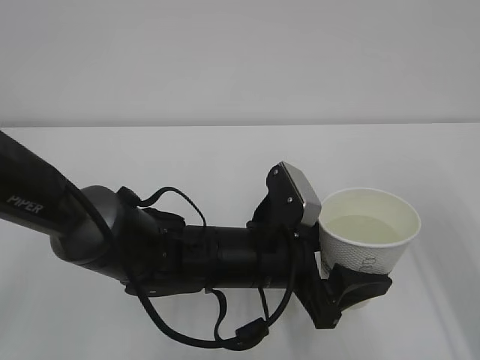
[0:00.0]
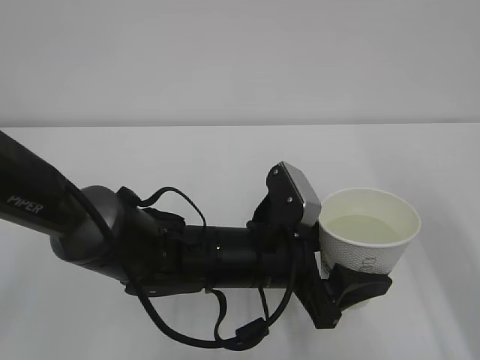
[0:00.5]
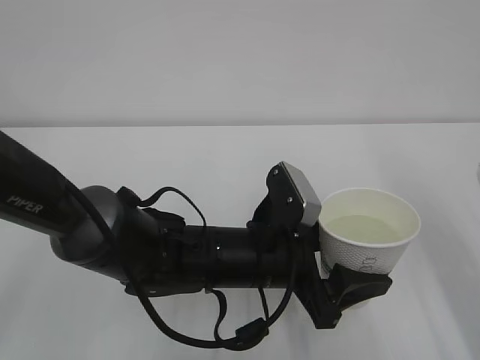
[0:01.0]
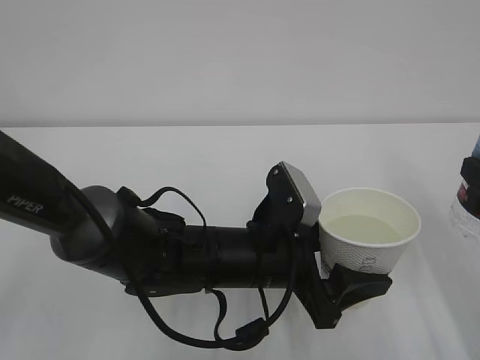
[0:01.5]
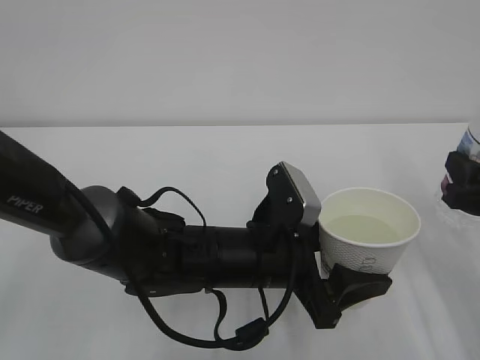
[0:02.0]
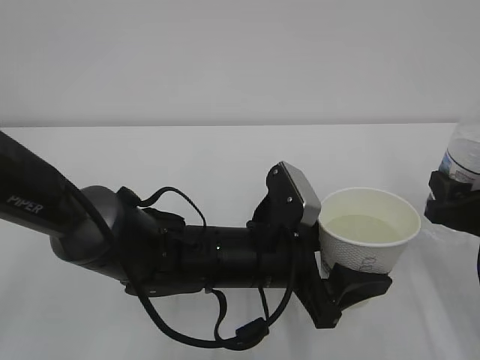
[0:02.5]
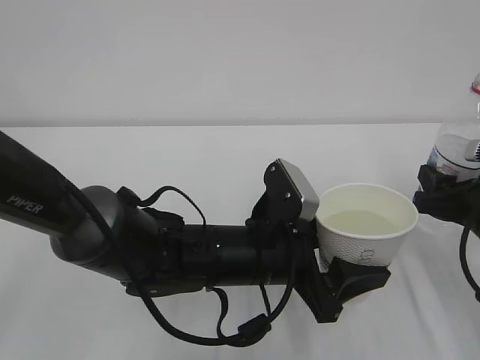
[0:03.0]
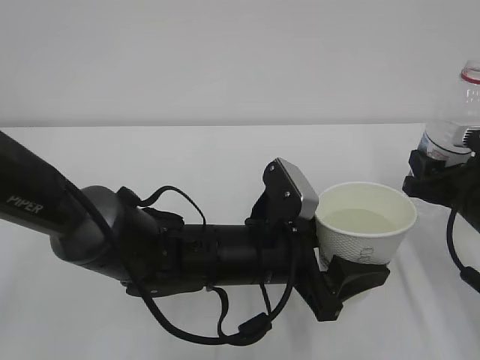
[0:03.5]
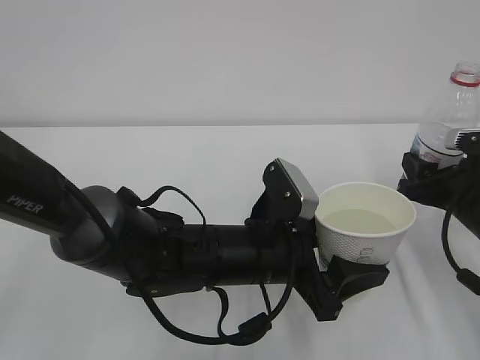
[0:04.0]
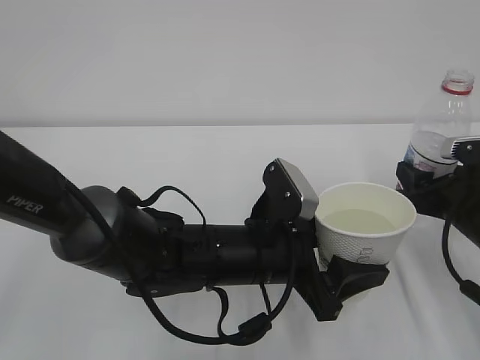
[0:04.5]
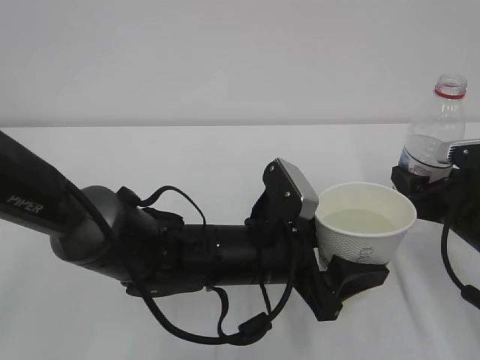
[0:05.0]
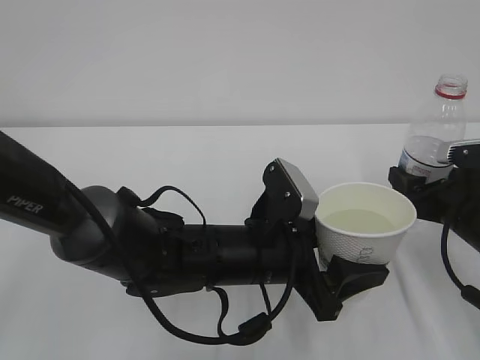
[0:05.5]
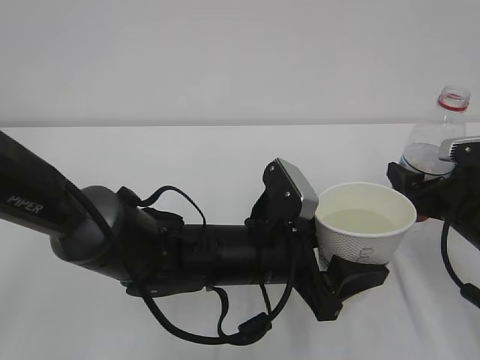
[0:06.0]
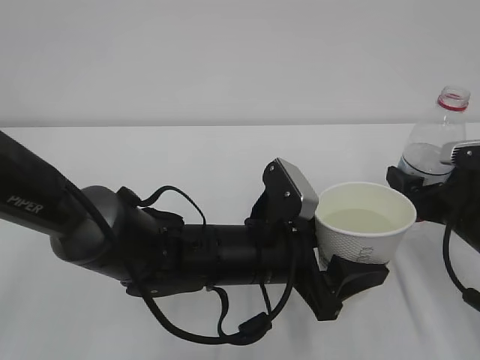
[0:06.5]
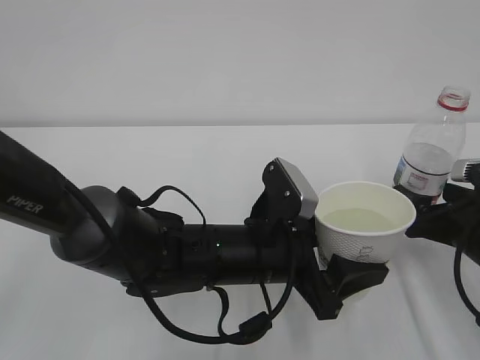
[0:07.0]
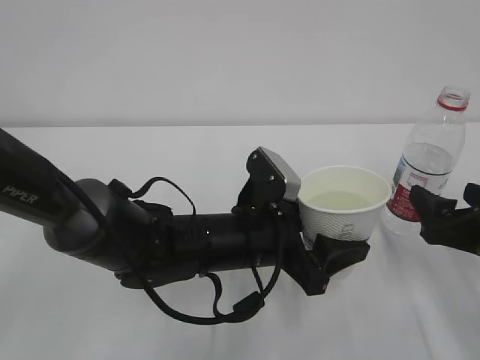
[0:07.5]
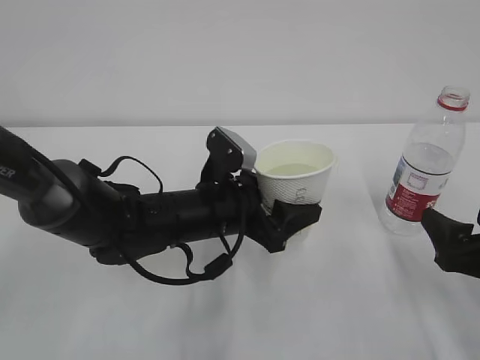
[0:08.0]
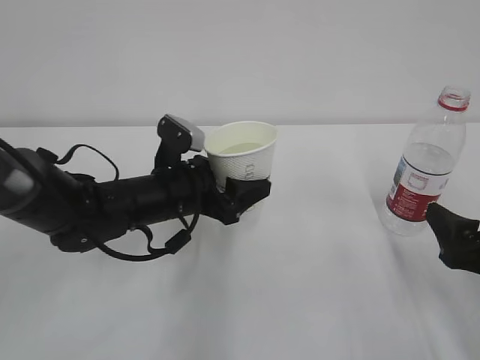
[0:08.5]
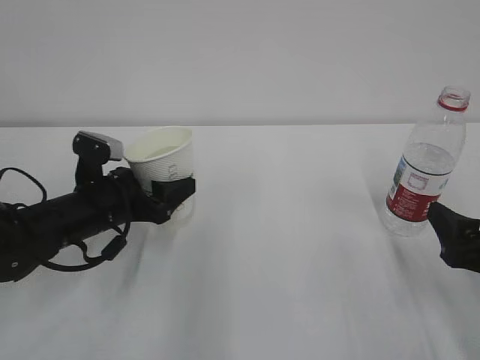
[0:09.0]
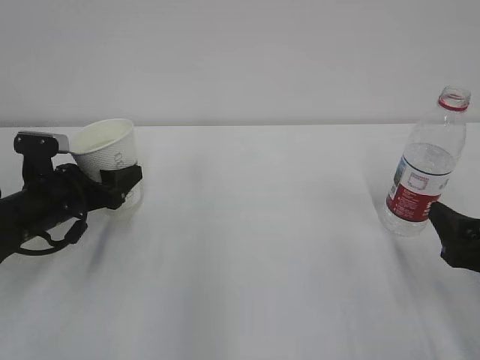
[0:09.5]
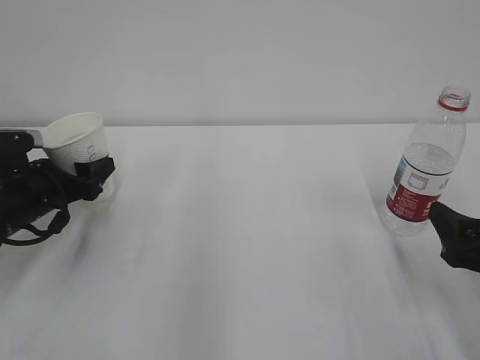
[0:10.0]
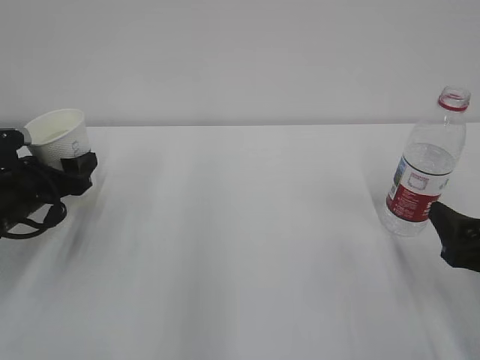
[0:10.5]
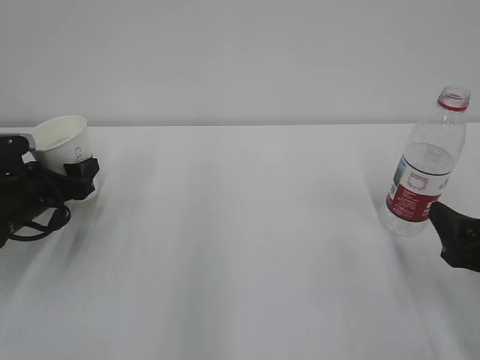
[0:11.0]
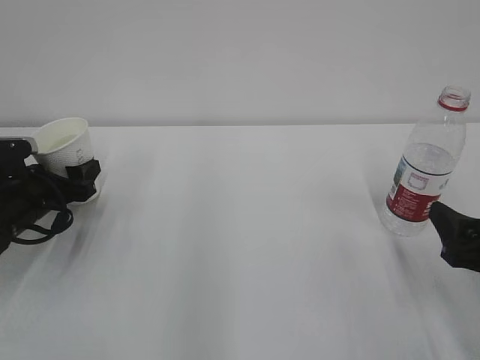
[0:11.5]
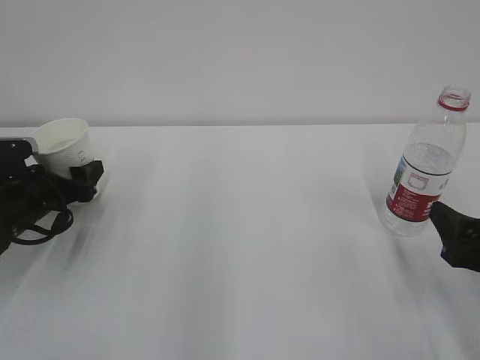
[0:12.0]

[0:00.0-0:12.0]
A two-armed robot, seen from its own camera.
0:00.0 to 0:02.0: The right gripper shifts approximately 10 cm downward.
0:02.0 to 0:04.0: The right gripper heads forward, covering some 5 cm.
0:04.0 to 0:06.0: The right gripper opens its fingers.
0:06.0 to 0:08.0: The left gripper shifts approximately 5 cm forward. The right gripper shifts approximately 10 cm backward.
0:08.0 to 0:10.0: The left gripper is displaced to the left by roughly 25 cm.
0:10.0 to 0:12.0: There are only small adjustments of the grippers.

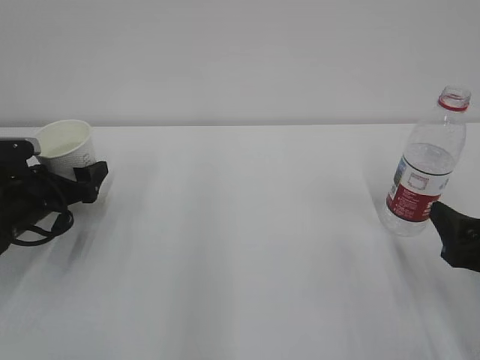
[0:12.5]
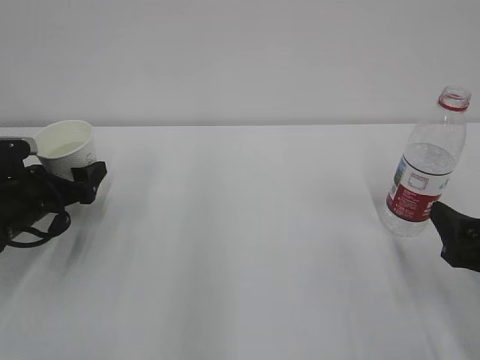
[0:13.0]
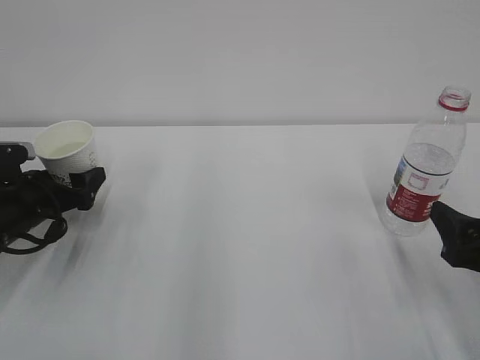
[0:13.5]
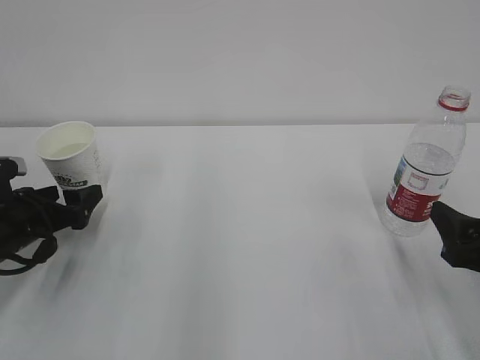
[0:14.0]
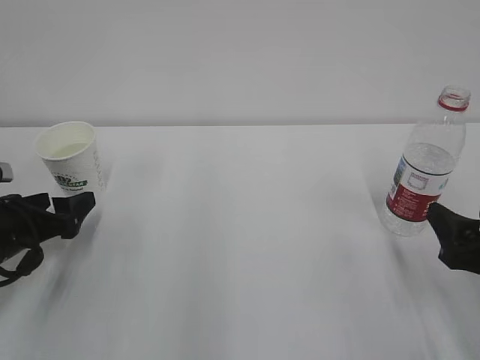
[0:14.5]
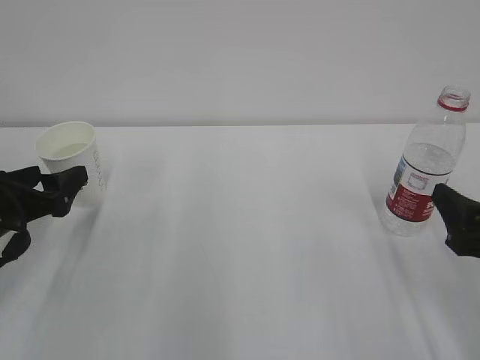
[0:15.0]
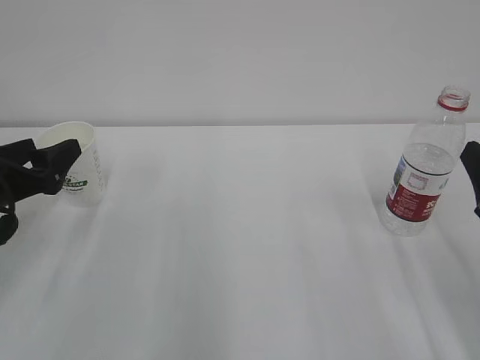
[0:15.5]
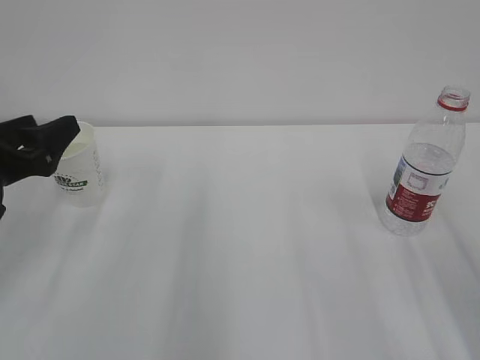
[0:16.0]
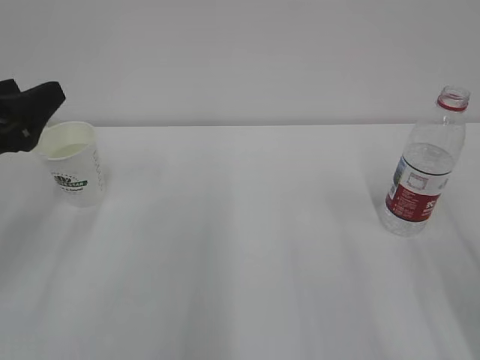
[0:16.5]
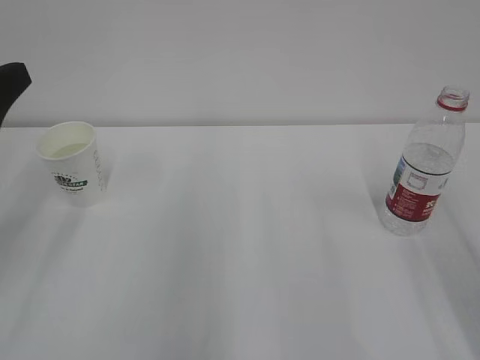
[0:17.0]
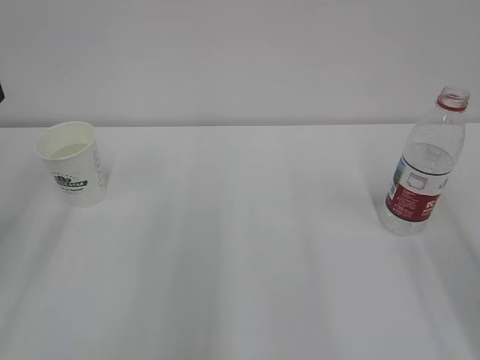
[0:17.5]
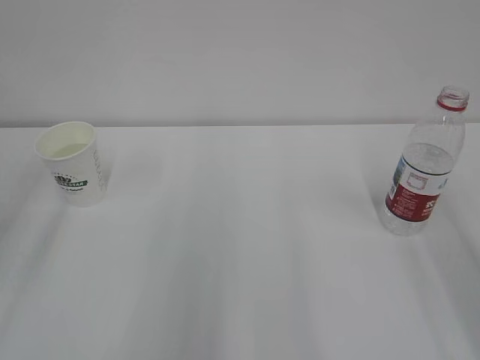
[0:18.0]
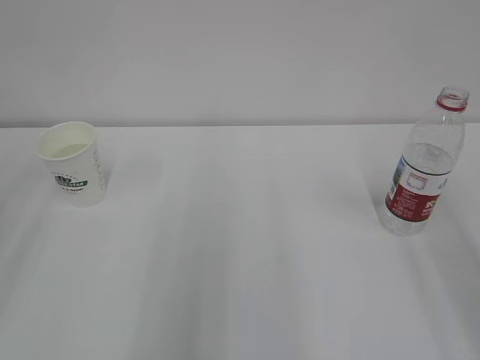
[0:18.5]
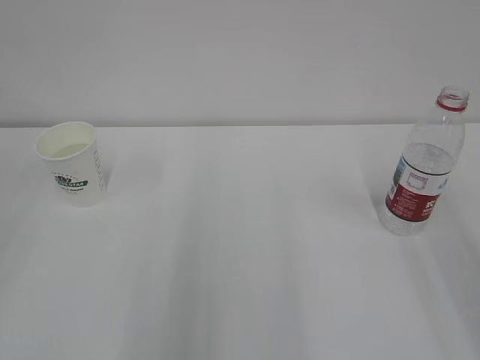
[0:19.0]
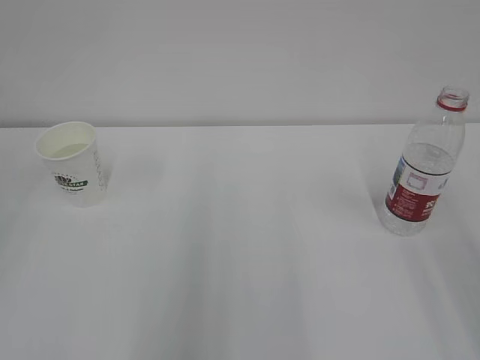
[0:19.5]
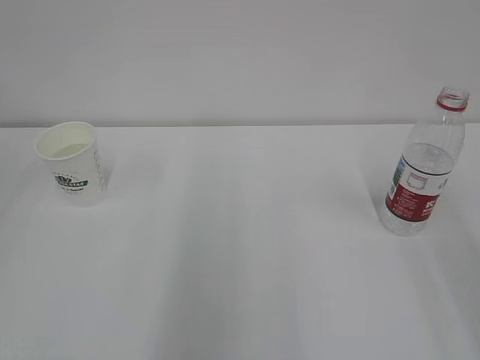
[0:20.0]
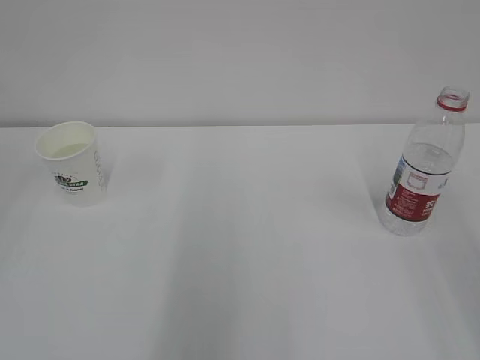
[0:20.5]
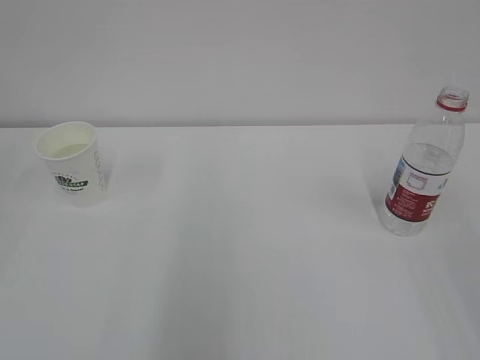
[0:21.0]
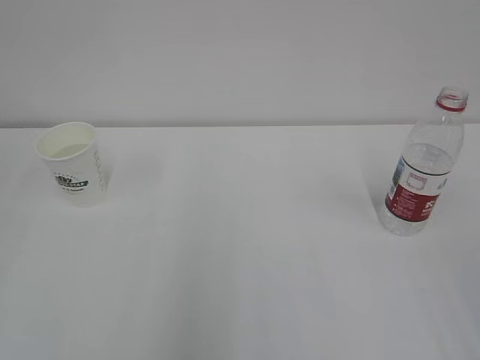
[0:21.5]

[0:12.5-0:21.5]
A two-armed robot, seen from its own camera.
0:12.5 to 0:14.5: The left gripper travels backward by roughly 5 cm.
0:14.5 to 0:17.0: The two grippers go roughly 15 cm upward. The left gripper closes its fingers.
0:17.0 to 0:19.5: The left gripper moves backward and upward, roughly 15 cm.

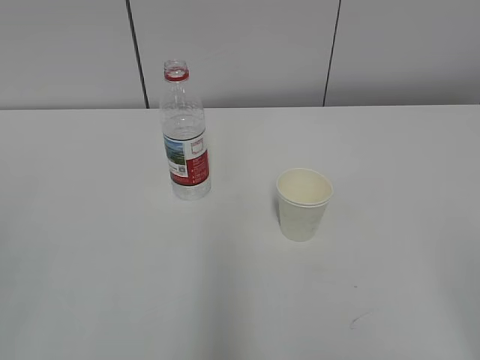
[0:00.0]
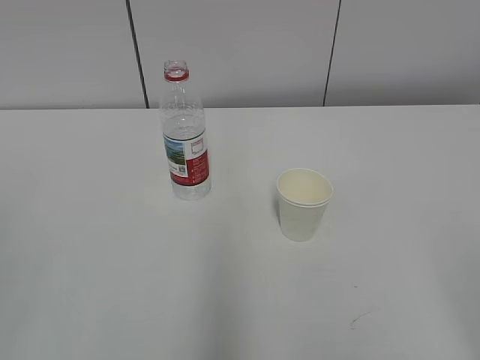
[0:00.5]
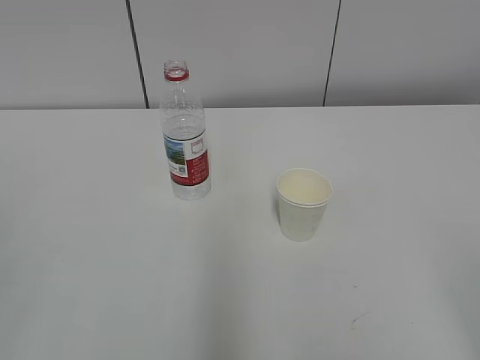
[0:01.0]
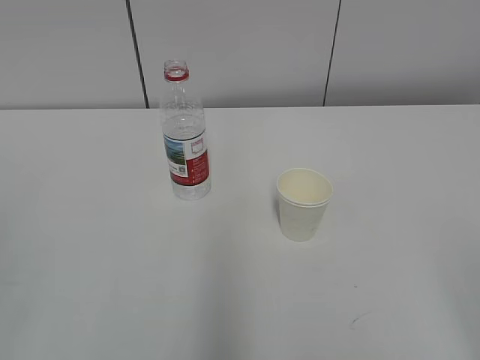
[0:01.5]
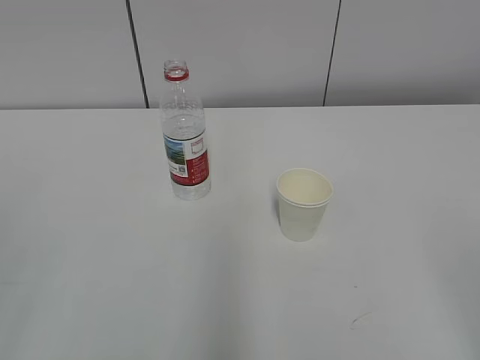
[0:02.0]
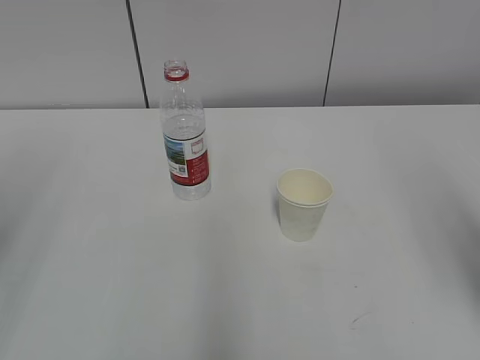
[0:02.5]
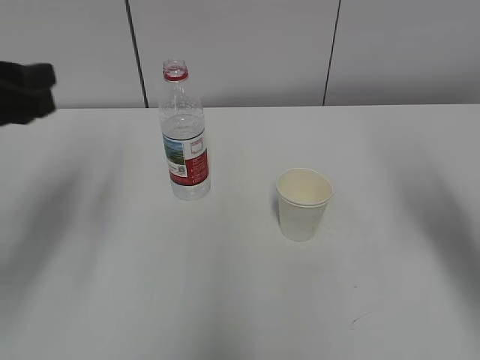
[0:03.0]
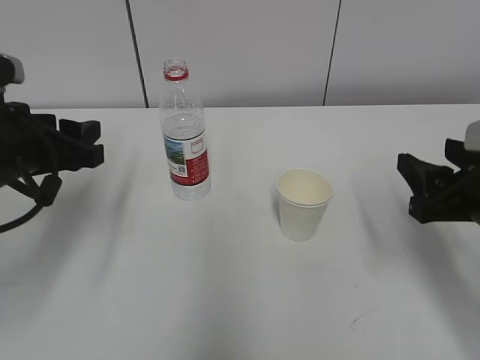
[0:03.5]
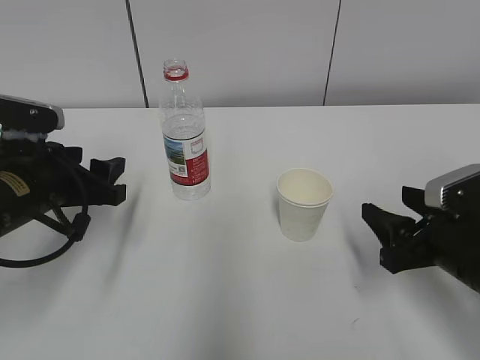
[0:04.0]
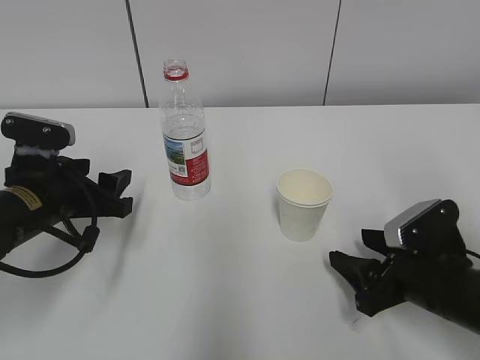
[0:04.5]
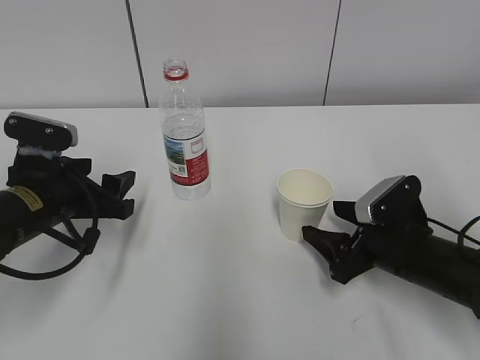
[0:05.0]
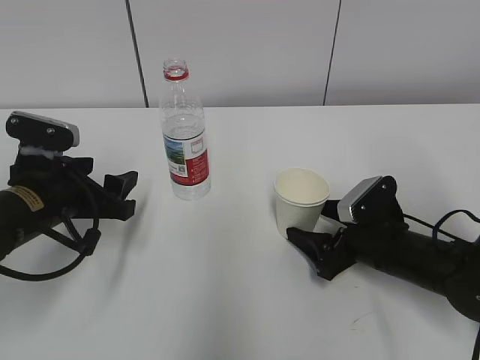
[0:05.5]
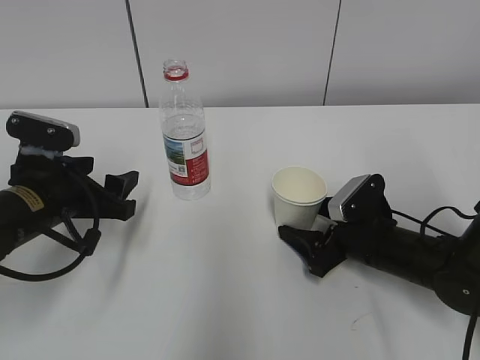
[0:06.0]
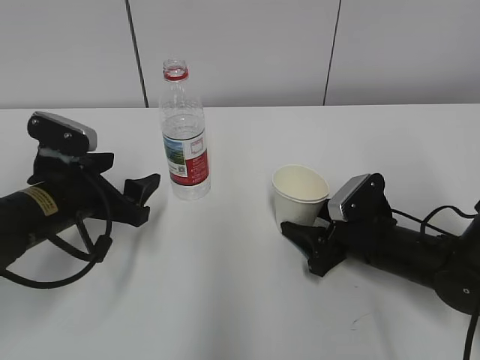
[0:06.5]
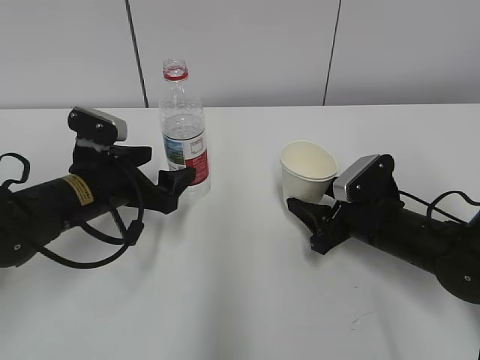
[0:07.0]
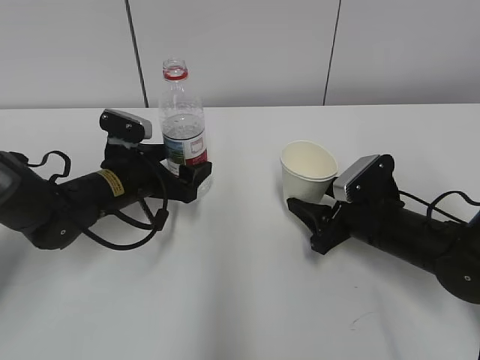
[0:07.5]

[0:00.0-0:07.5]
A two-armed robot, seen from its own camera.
Step, 0:00.0 to 0:05.0: Grab the paper cup with the right hand.
Step, 0:05.5 to 0:06.5: Grab the water bottle with the left hand.
0:02.0 to 0:04.0: The two grippers go approximately 30 cm forward and downward. The right gripper closes its fingers.
0:04.0 to 0:05.5: The right gripper moves downward and forward, about 10 cm, and opens up.
0:05.5 to 0:07.5: The left gripper travels forward and to the right by about 10 cm, and opens, while the right gripper closes its fingers.
